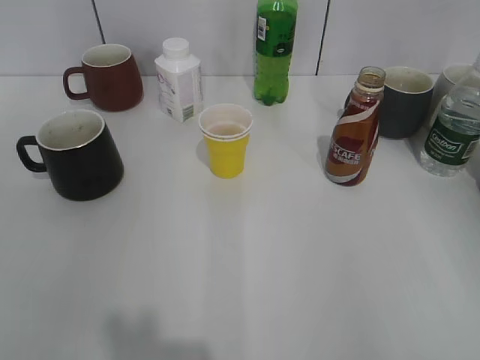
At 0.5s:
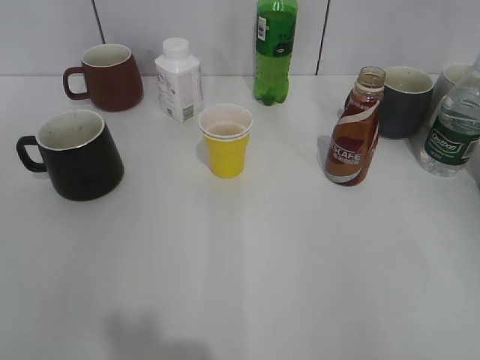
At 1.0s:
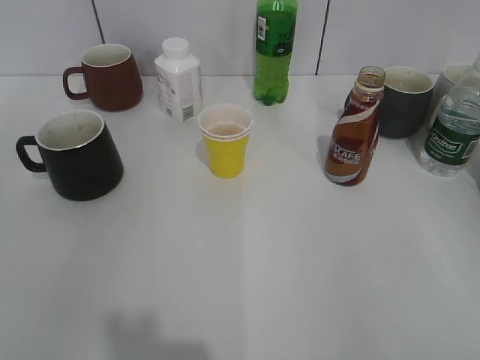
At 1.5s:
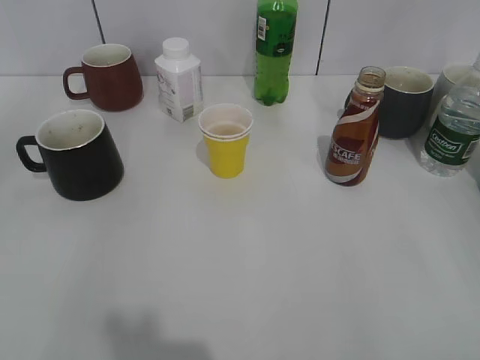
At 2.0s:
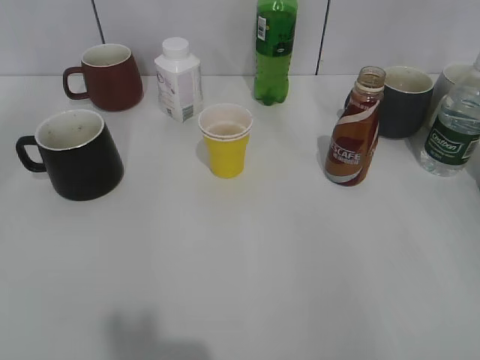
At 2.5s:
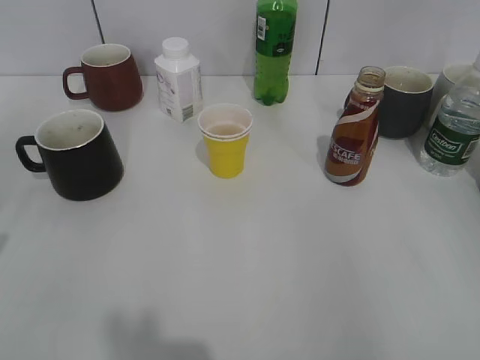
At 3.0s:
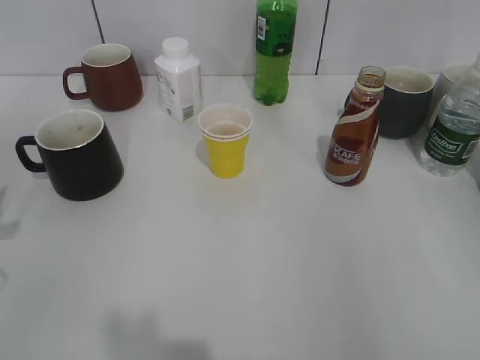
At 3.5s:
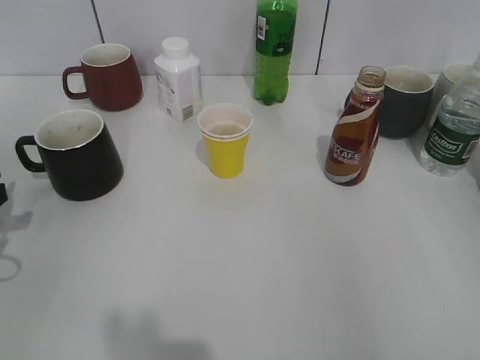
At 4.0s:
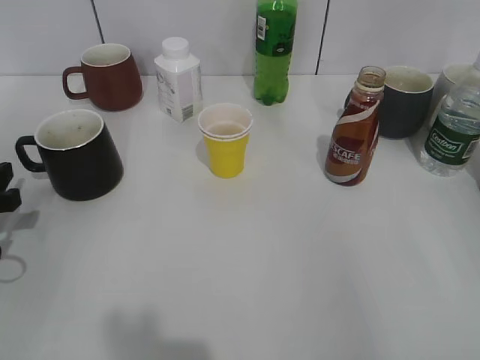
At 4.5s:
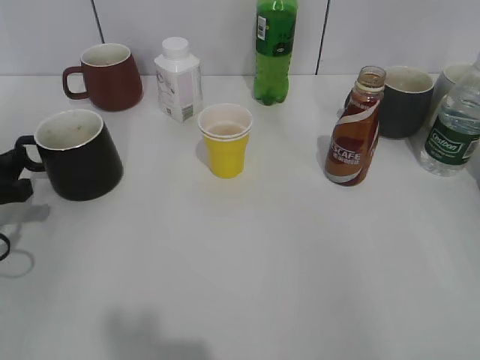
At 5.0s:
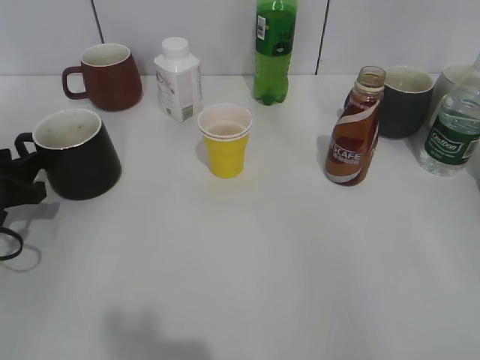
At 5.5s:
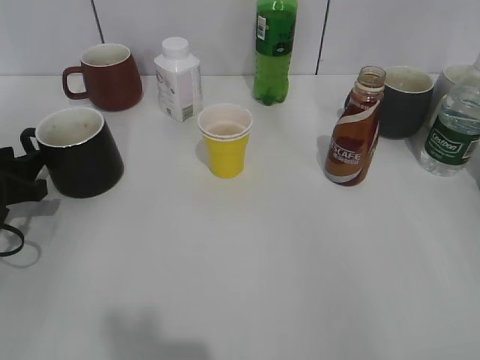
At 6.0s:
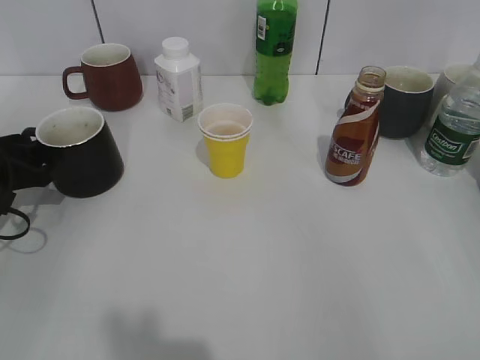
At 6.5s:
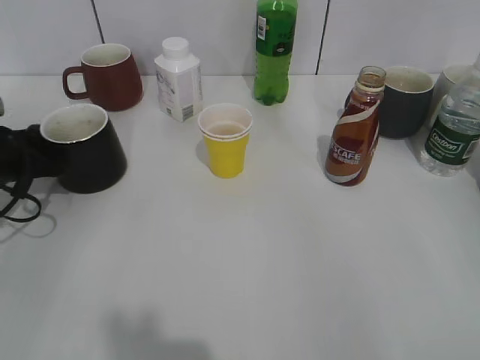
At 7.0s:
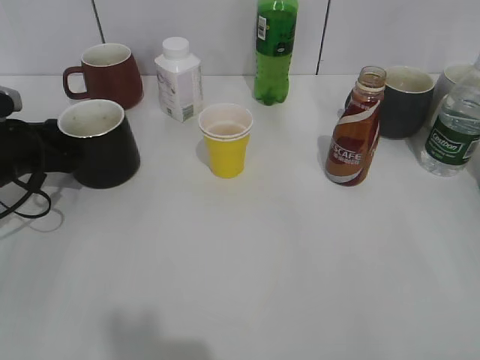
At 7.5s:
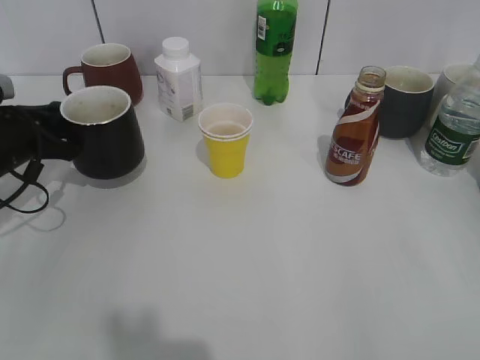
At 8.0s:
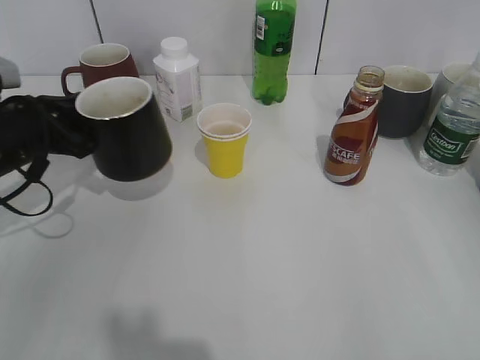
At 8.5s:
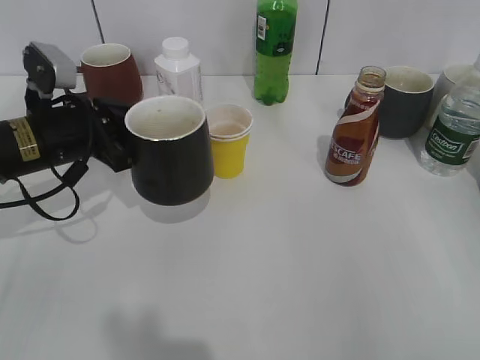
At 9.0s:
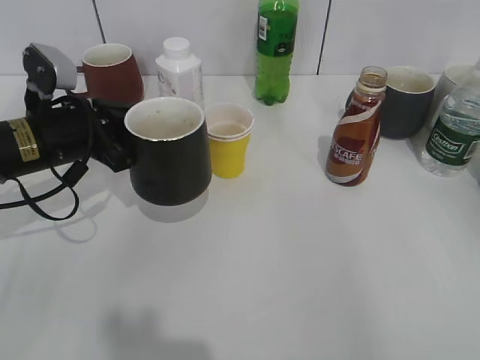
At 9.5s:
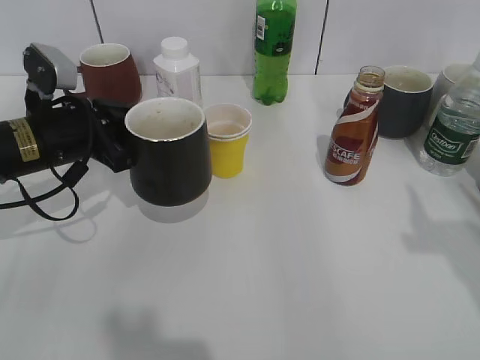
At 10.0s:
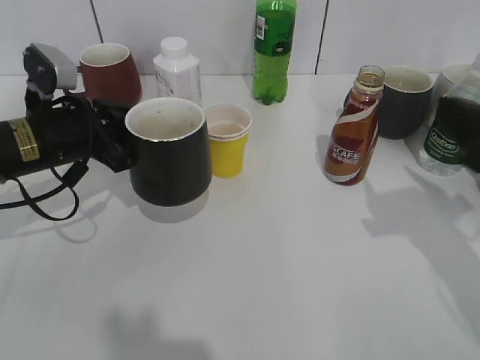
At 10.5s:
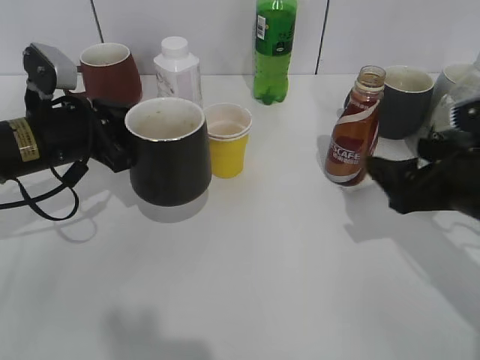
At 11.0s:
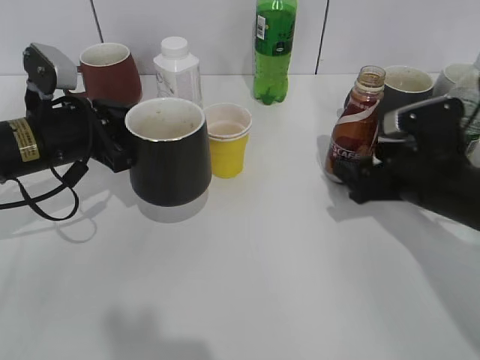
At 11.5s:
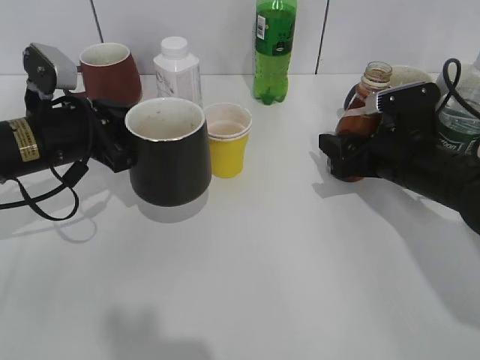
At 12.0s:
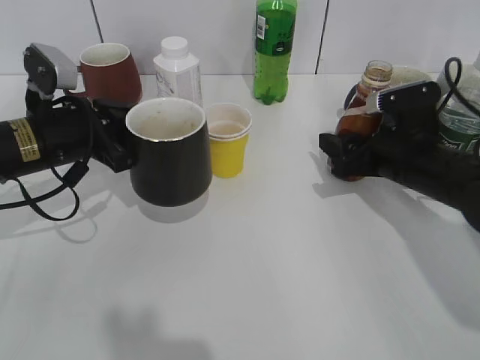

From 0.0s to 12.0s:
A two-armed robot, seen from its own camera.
Step, from 1.5s to 7.0s: Grasp the black cup with left gripper.
Step, from 7.5s to 8.0s: Lift the black cup with left gripper.
Step, from 9.0s to 11.5s: Grasp the bottle with coffee with right gripper.
From 2.0s to 4.0s: The left gripper shifts about 20 cm downward and forward, and opens.
From 4.0s to 6.0s: The left gripper ends up some 5 cm from where it was.
From 6.0s to 8.0s: The left gripper shifts by some 5 cm, and closes.
From 8.0s to 10.0s: The left gripper shifts approximately 5 cm to the right. The right gripper shifts roughly 20 cm forward.
From 10.0s to 12.0s: The right gripper heads forward, downward and to the left, covering roughly 20 cm, and closes up.

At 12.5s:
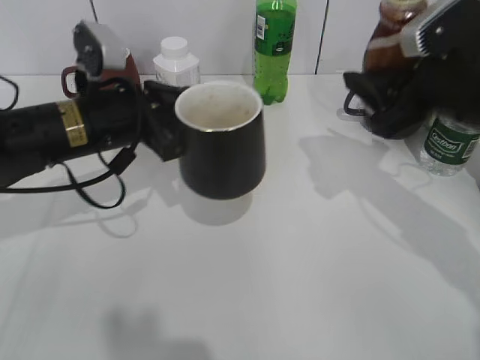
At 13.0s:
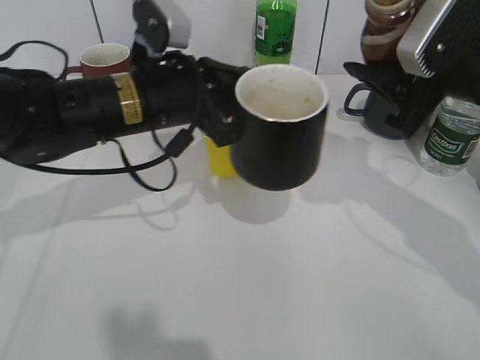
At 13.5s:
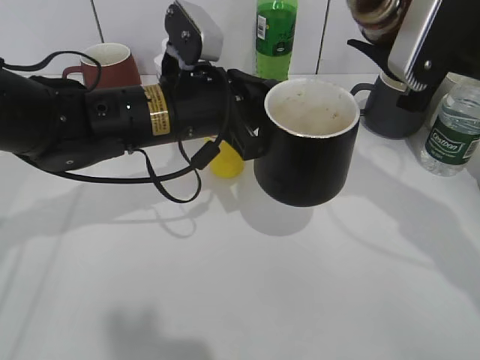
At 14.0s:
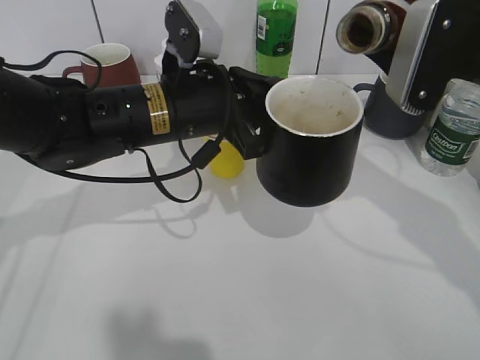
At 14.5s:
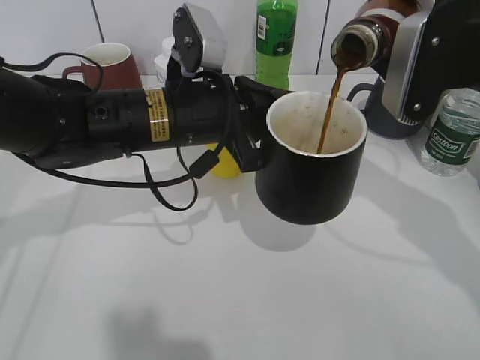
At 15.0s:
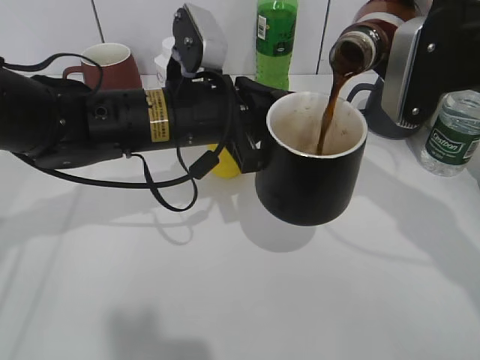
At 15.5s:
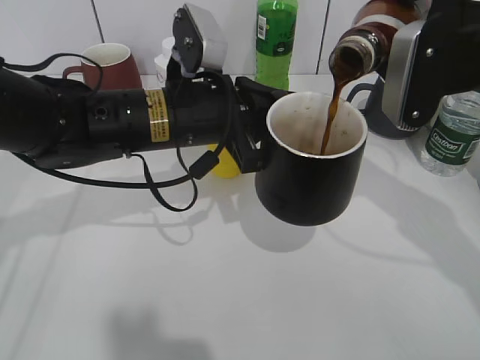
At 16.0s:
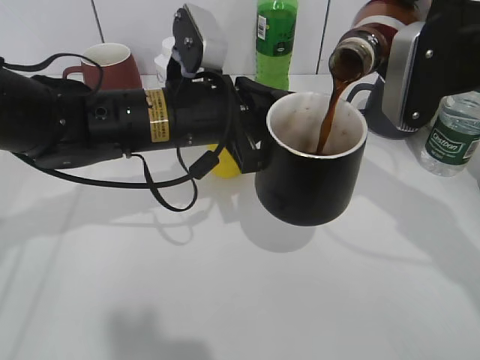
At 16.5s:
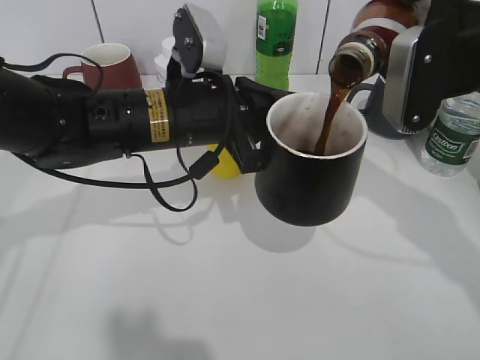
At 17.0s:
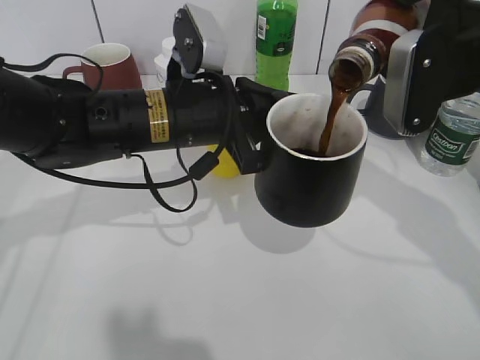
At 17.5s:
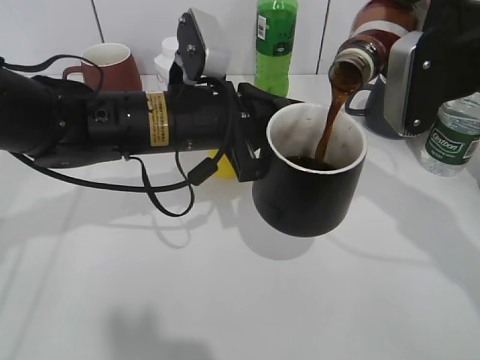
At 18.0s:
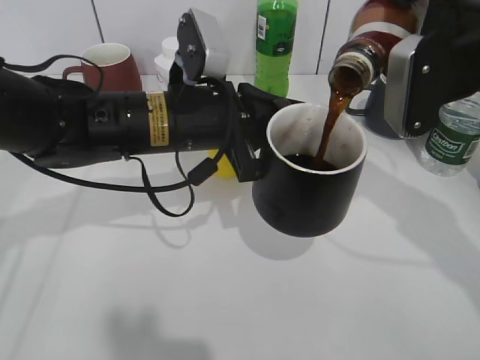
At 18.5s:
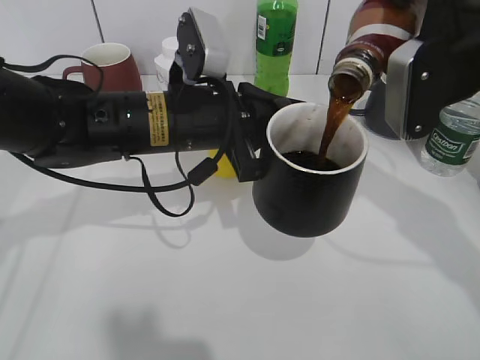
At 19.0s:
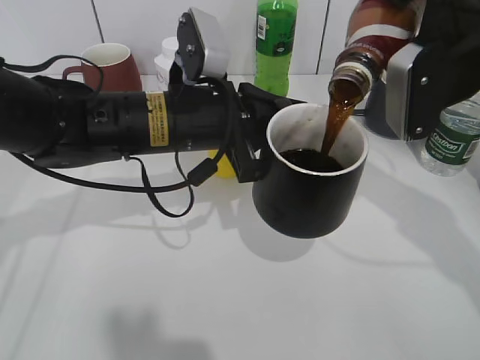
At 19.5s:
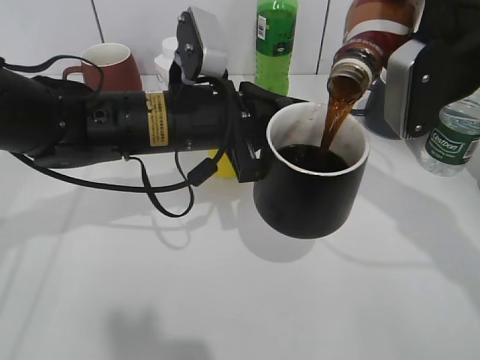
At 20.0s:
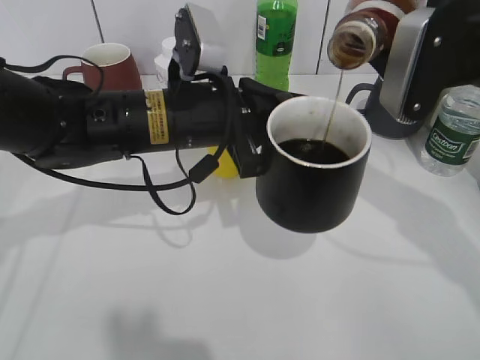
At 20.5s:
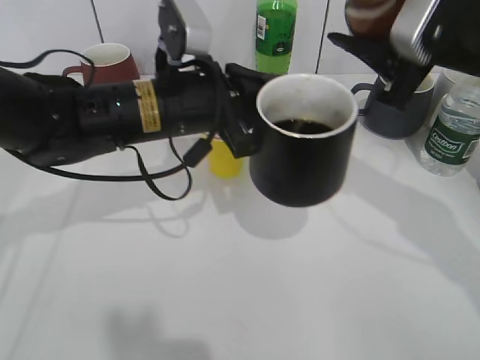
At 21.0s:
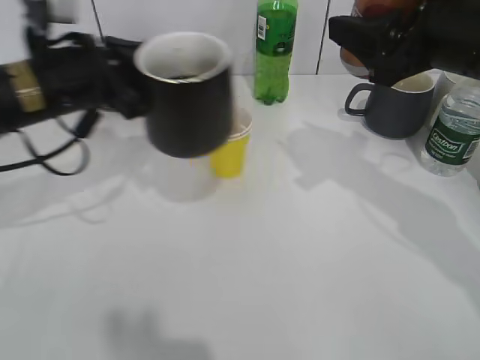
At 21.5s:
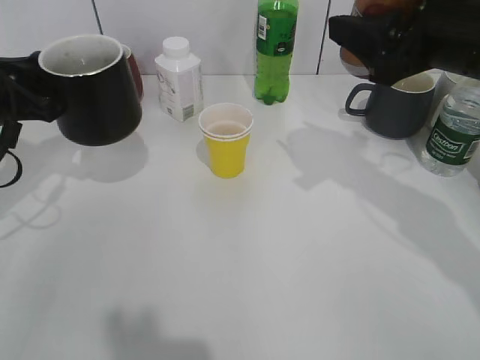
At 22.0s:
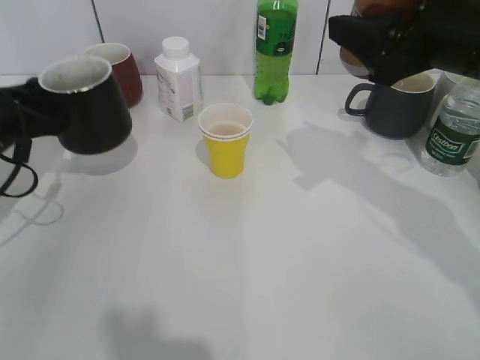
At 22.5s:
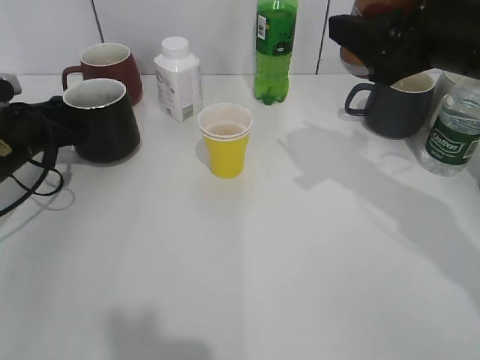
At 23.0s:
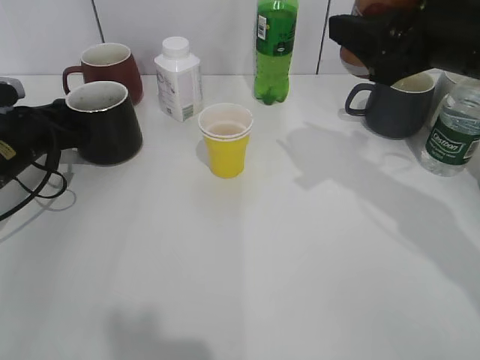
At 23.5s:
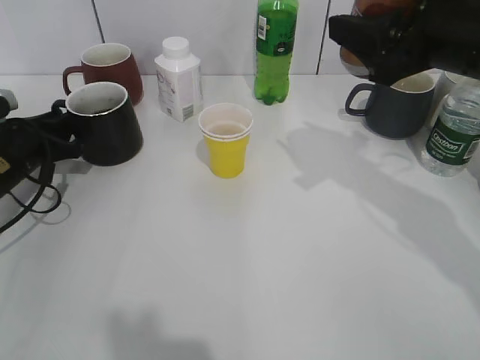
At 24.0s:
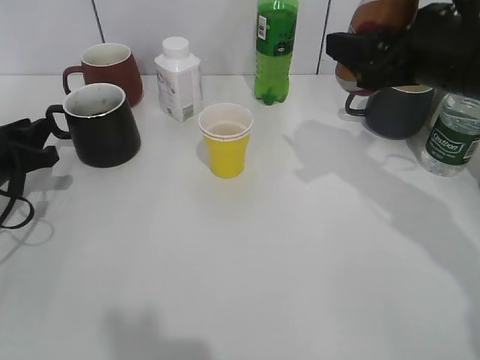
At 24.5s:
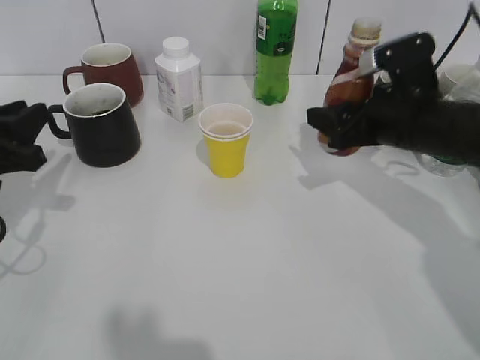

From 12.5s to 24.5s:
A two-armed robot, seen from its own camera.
Step, from 12.5s to 20.0s: Pour the coffee from bottle to cup with right gripper.
Step, from 20.5s to 23.5s: Place the black cup on the table with left gripper.
From 12.5s to 14.5s: The left gripper goes some 10 cm to the right.
From 14.5s to 18.5s: The grippers move only a little.
From 20.5s to 22.5s: The left gripper travels to the left and downward by approximately 25 cm.
From 22.5s to 24.5s: The left gripper shifts about 10 cm backward, and opens its fingers. Meanwhile the right gripper shifts some 10 cm downward.

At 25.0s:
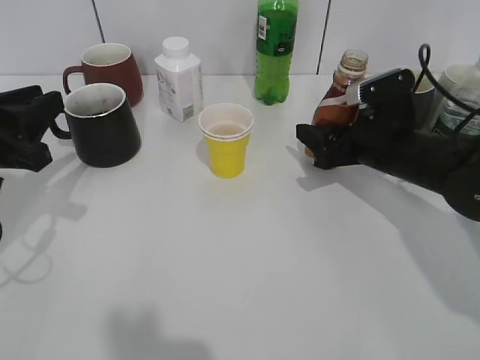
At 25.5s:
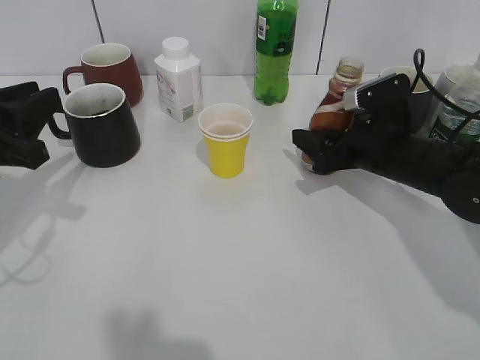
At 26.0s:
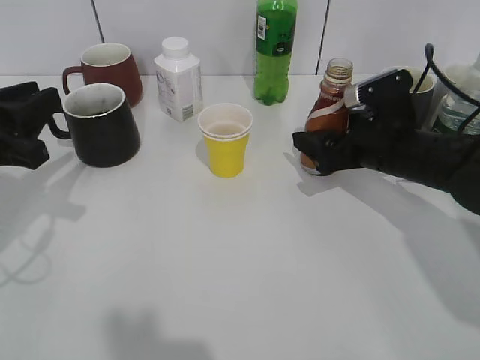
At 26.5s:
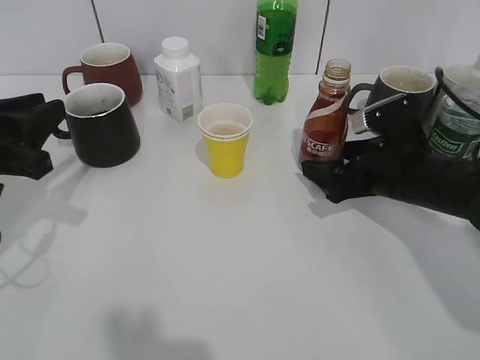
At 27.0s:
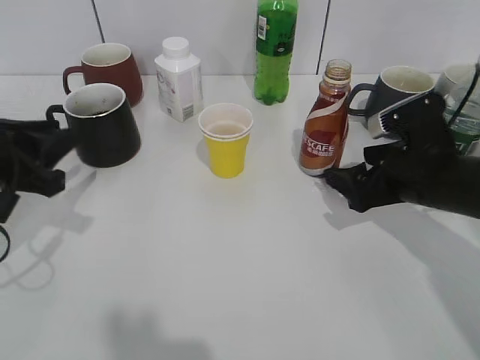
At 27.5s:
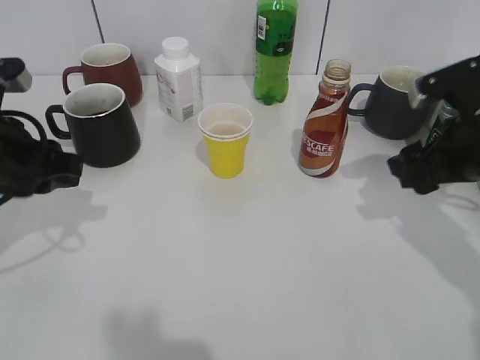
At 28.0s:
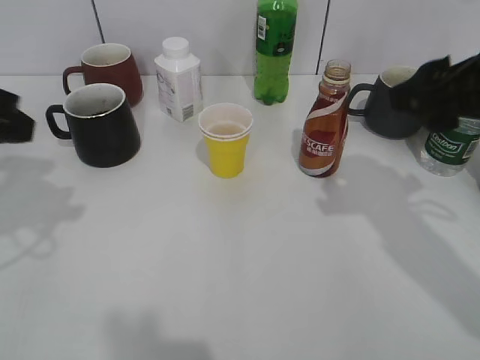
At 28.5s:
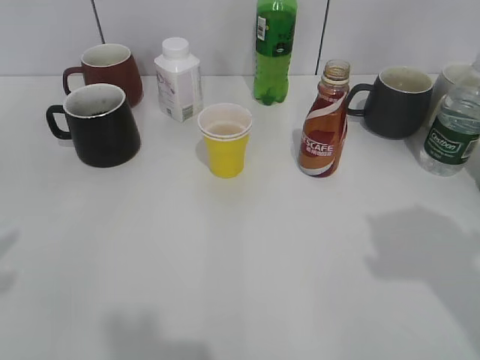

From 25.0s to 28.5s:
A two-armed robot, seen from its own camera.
From 25.0s to 27.0s: The right gripper goes some 5 cm backward, and opens up.
From 27.0s to 28.5s: The left gripper shifts approximately 20 cm backward and upward. The right gripper travels upward and backward by about 25 cm.
